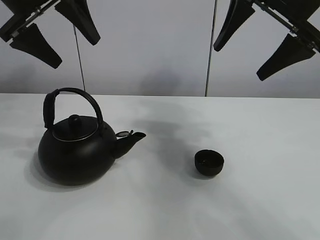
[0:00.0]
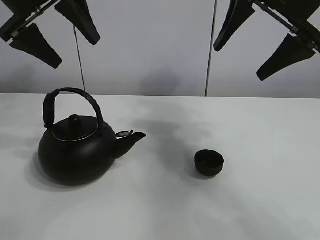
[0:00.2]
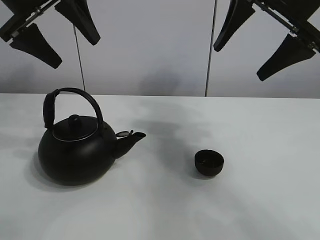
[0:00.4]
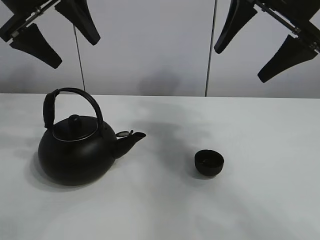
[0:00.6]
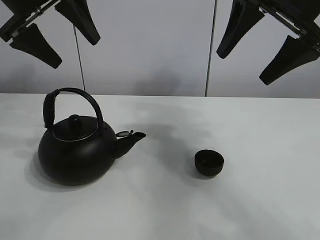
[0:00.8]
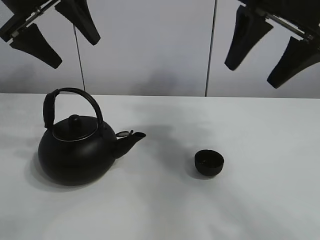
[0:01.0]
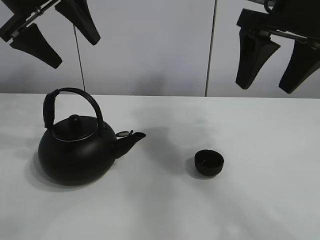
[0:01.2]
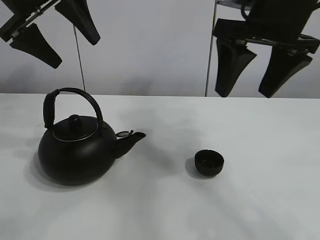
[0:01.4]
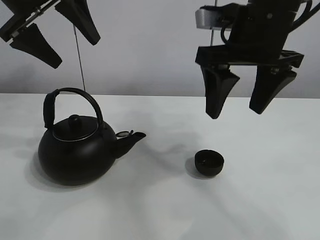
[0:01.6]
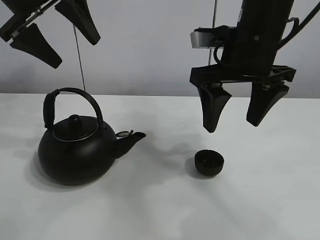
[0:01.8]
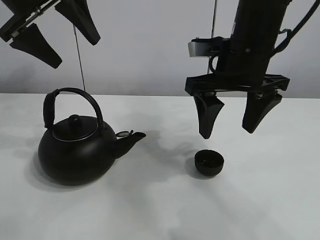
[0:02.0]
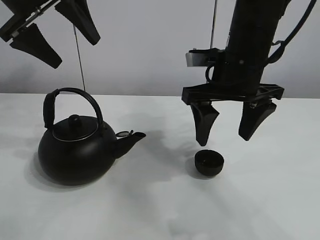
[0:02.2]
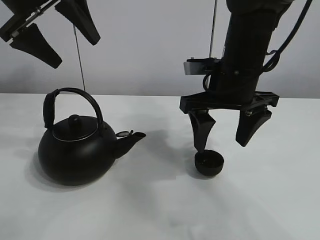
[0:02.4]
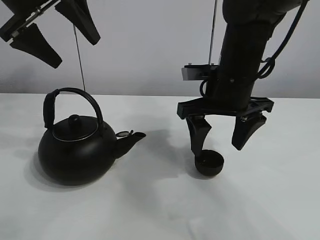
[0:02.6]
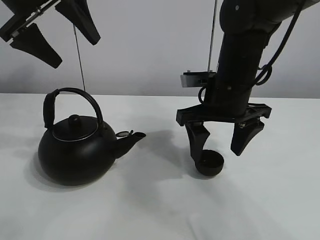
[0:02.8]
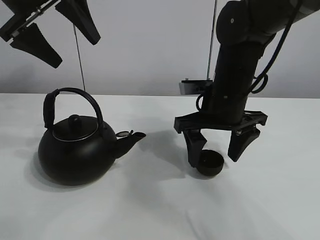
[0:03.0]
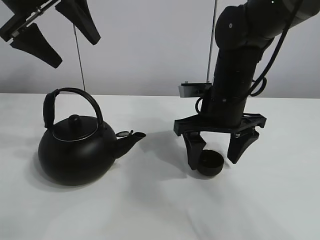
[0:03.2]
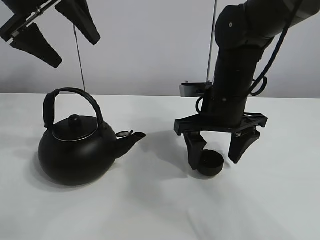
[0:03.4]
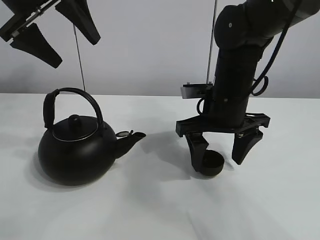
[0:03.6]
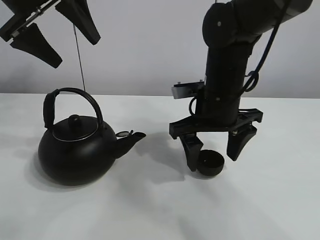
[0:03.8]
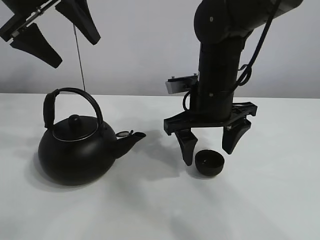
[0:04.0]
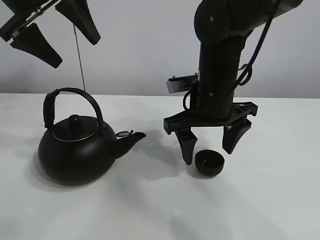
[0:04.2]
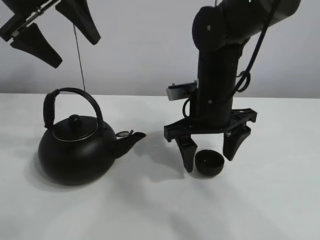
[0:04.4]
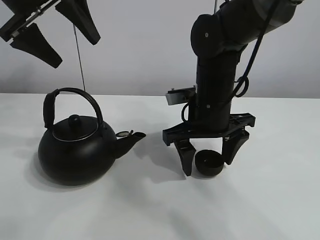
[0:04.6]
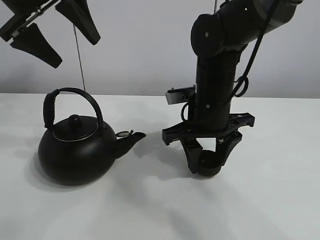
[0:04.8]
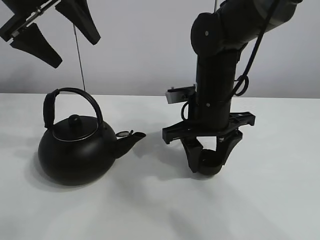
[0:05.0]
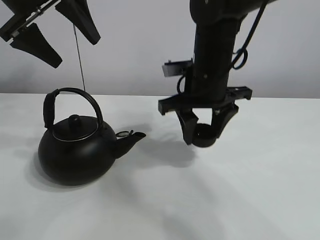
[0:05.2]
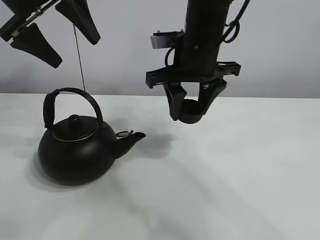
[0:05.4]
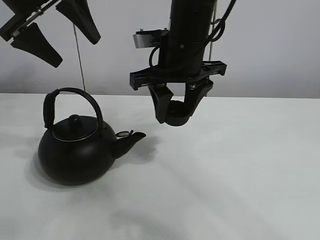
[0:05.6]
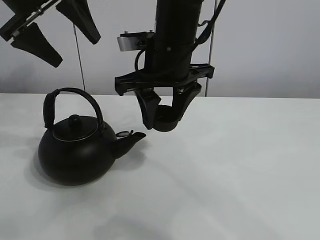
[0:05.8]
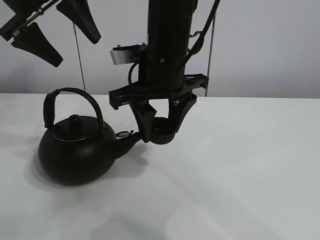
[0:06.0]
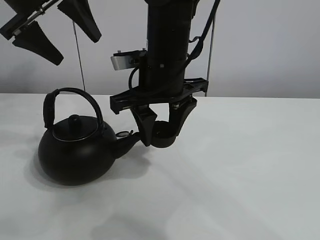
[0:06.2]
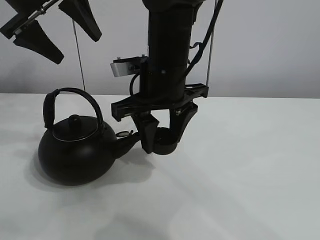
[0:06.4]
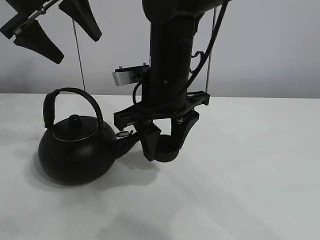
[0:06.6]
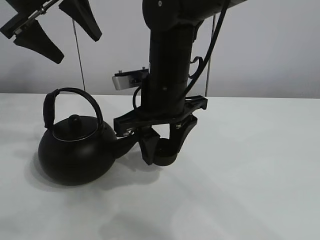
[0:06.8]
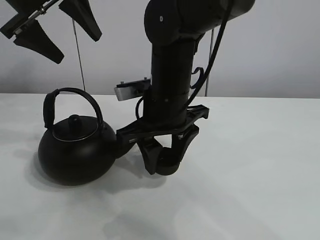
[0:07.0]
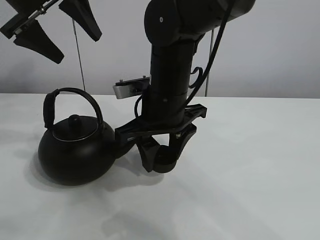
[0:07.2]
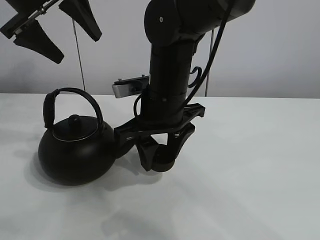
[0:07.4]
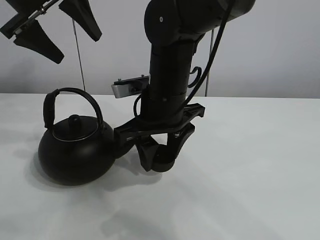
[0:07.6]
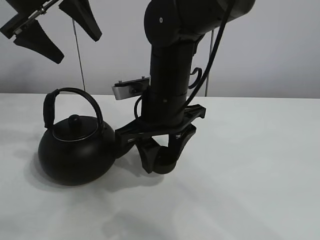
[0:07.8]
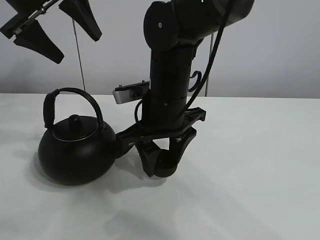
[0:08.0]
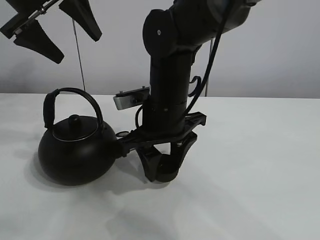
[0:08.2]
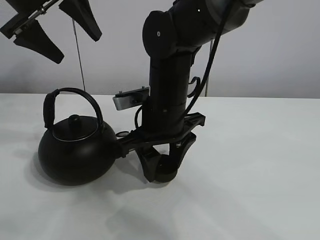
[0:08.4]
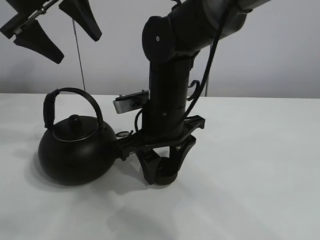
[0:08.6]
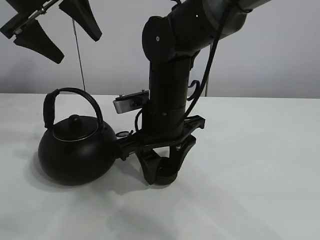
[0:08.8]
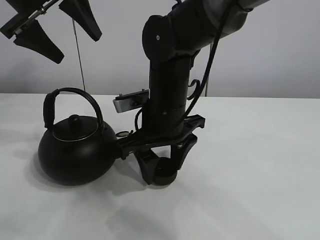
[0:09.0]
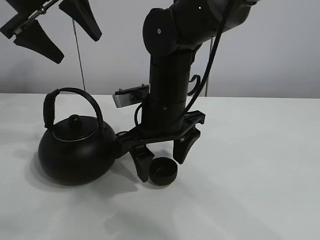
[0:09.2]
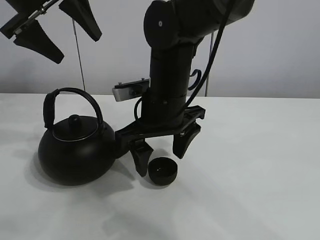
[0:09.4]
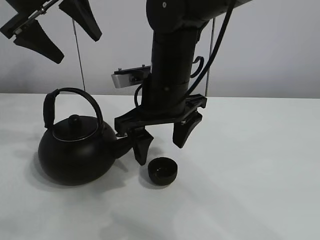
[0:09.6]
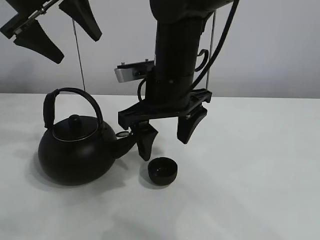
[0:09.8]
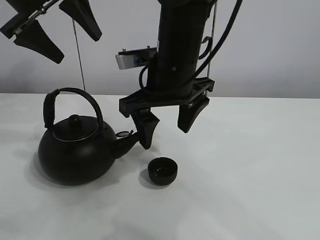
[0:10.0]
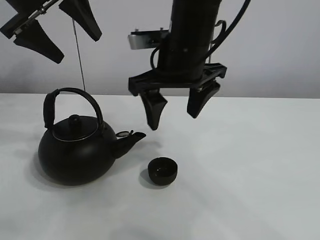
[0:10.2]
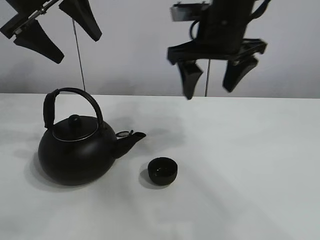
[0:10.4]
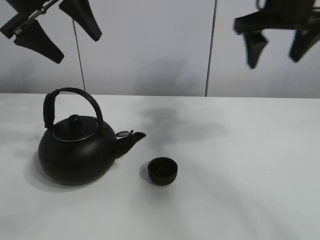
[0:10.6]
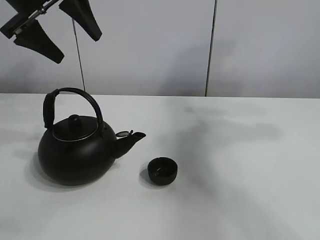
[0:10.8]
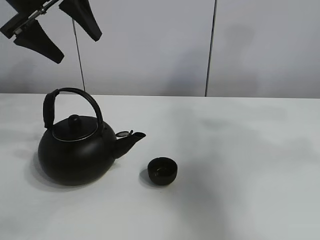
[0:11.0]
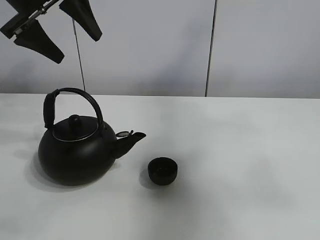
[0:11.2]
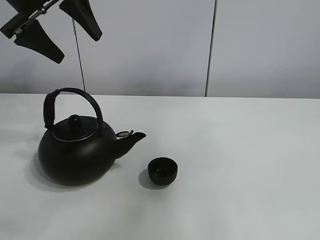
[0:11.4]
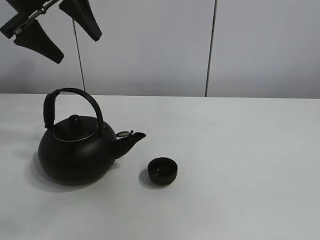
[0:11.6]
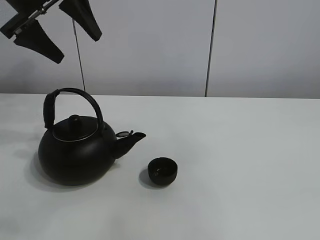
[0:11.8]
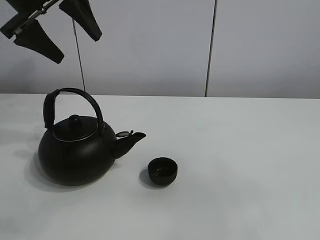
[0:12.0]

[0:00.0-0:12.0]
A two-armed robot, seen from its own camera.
Task of the whole recording: pour tea into the teacup.
Step, 0:00.0 to 0:05.0: Pick up the teacup with the right gripper.
Step, 0:05.2 to 0:09.0: Place the teacup in the center of view with the right gripper.
0:01.6 to 0:03.0: The right gripper heads downward, covering approximately 10 cm.
0:03.0 to 0:04.4: The grippers stay close to where they were, moving slightly.
0:04.4 to 0:06.0: The right gripper goes approximately 10 cm to the left and upward, and closes up.
0:06.0 to 0:07.6: The right gripper shifts roughly 5 cm downward.
0:07.6 to 0:09.0: The grippers stay close to where they were, moving slightly.
0:09.0 to 0:10.4: The right gripper shifts some 15 cm upward and to the right, and opens.
0:10.4 to 0:12.0: The right gripper moves backward, roughly 40 cm.

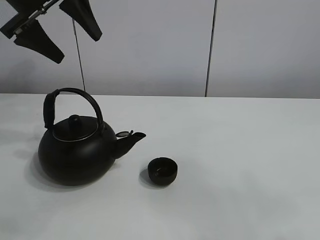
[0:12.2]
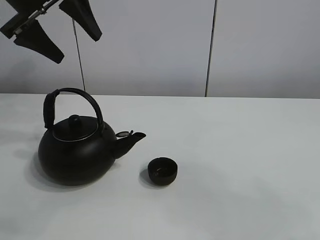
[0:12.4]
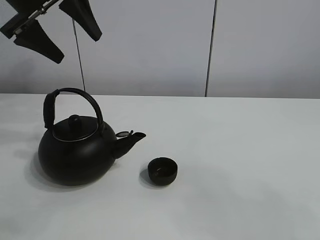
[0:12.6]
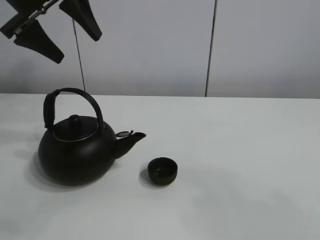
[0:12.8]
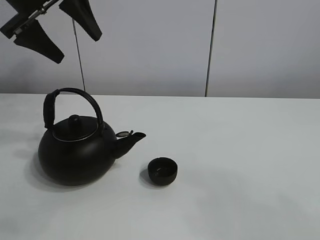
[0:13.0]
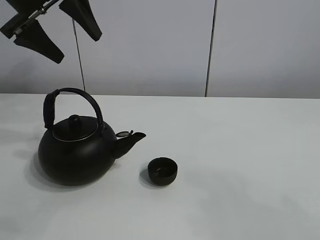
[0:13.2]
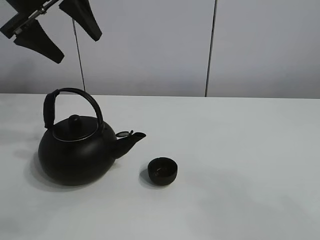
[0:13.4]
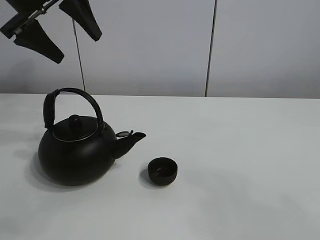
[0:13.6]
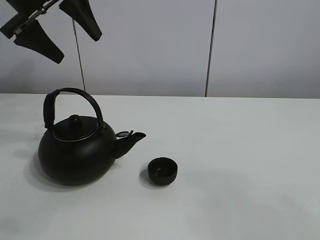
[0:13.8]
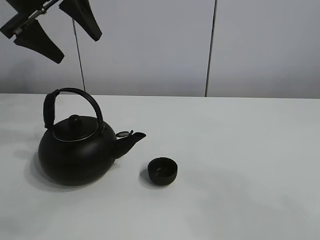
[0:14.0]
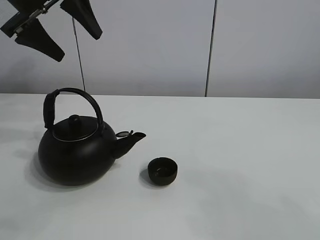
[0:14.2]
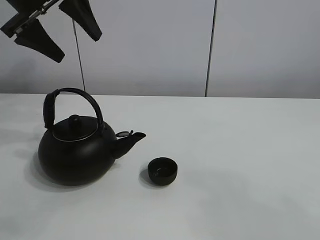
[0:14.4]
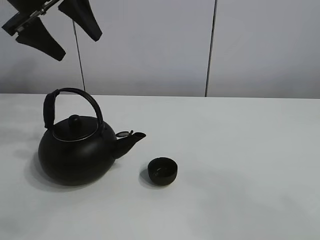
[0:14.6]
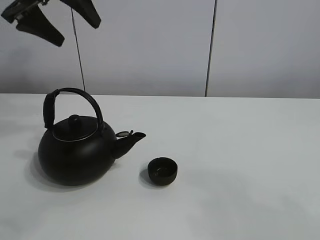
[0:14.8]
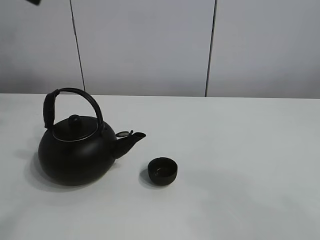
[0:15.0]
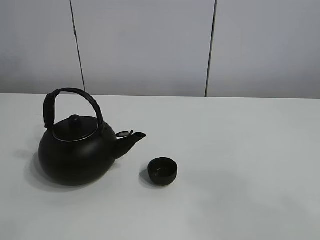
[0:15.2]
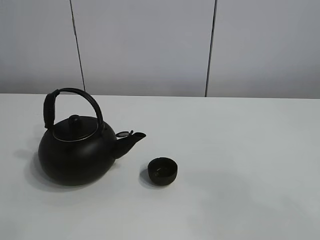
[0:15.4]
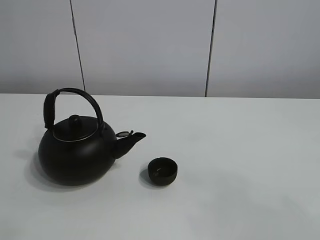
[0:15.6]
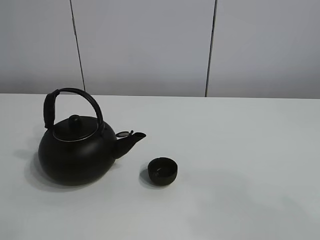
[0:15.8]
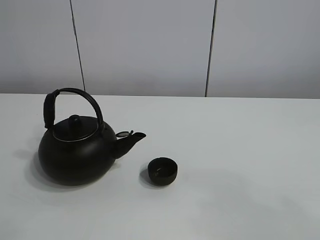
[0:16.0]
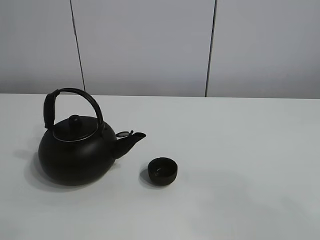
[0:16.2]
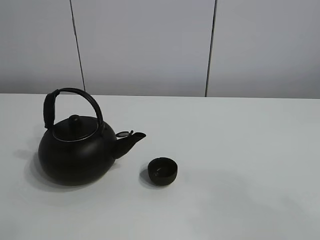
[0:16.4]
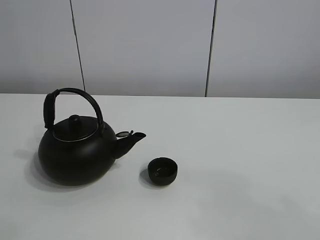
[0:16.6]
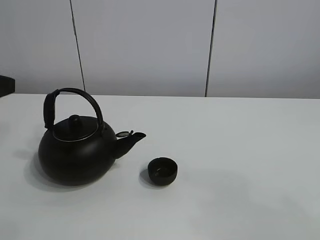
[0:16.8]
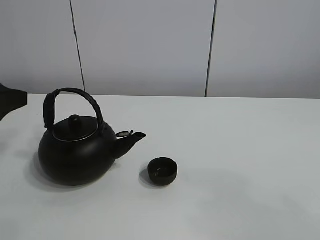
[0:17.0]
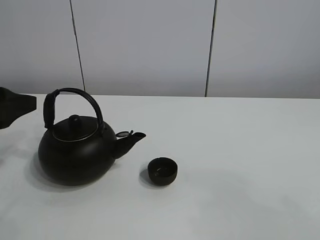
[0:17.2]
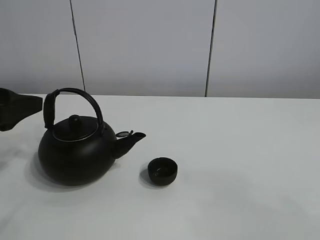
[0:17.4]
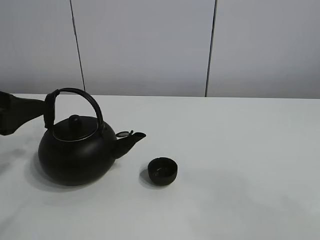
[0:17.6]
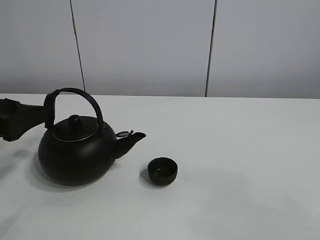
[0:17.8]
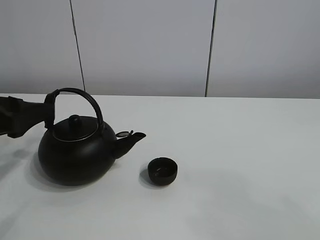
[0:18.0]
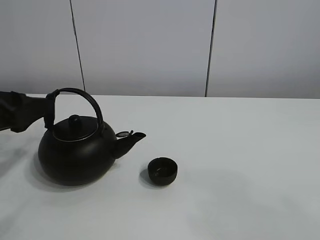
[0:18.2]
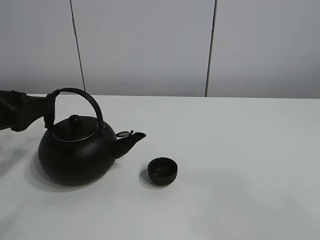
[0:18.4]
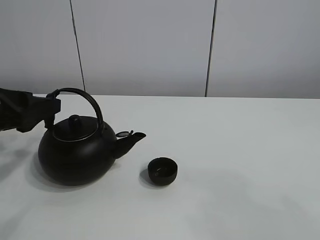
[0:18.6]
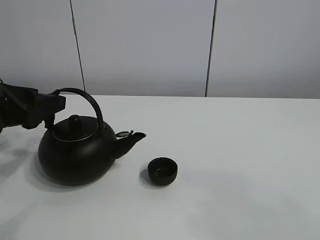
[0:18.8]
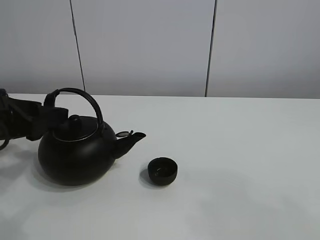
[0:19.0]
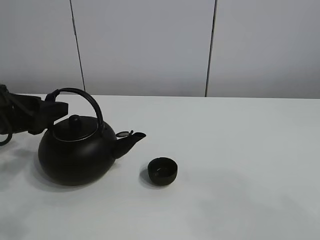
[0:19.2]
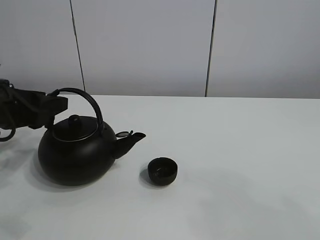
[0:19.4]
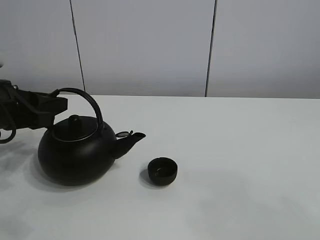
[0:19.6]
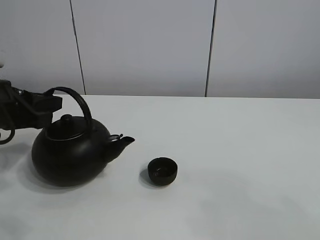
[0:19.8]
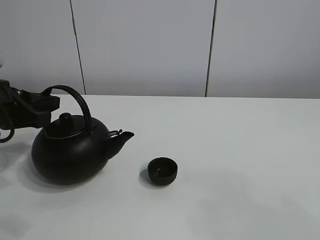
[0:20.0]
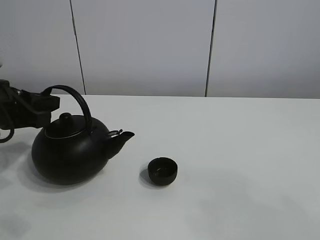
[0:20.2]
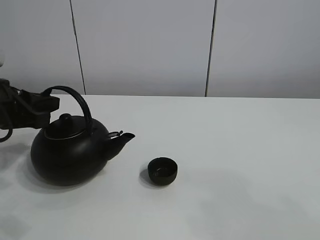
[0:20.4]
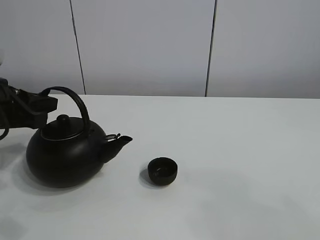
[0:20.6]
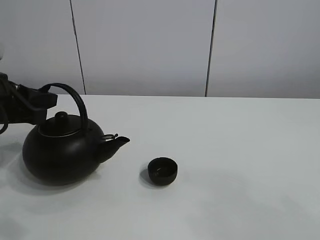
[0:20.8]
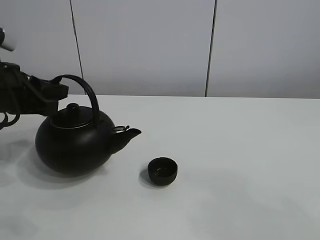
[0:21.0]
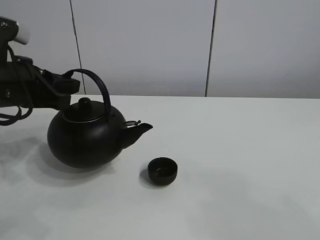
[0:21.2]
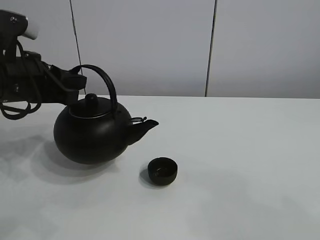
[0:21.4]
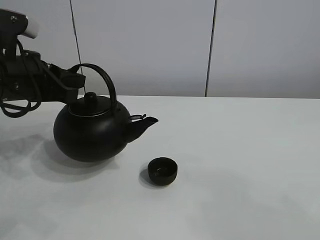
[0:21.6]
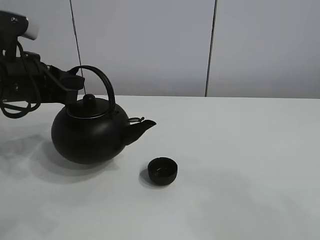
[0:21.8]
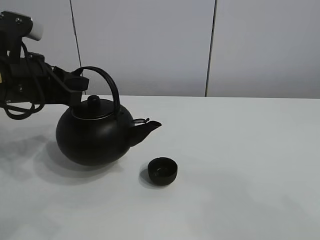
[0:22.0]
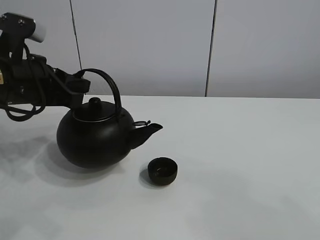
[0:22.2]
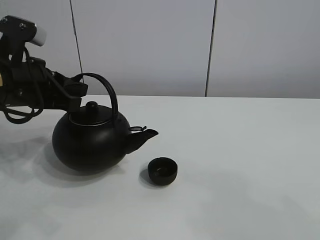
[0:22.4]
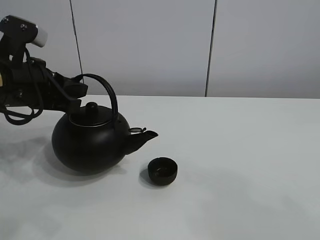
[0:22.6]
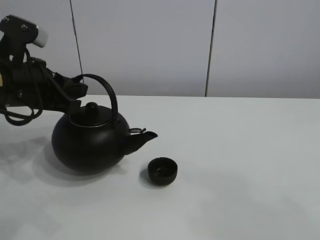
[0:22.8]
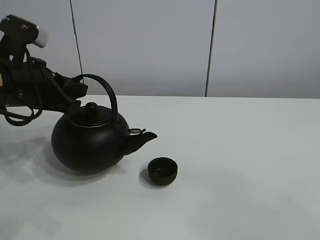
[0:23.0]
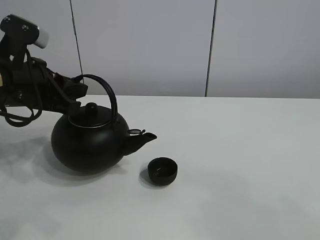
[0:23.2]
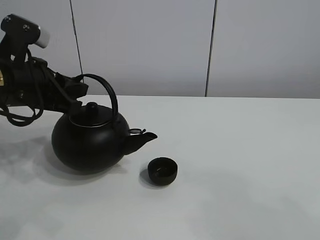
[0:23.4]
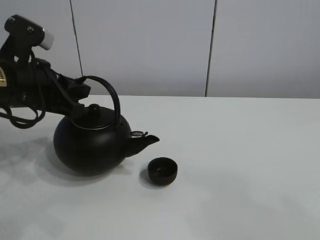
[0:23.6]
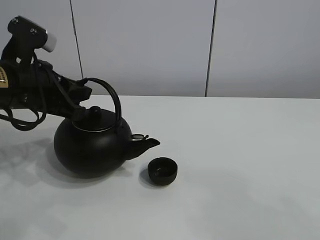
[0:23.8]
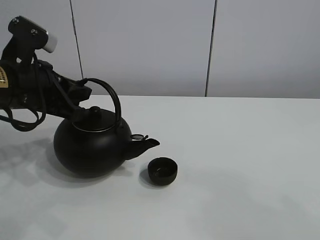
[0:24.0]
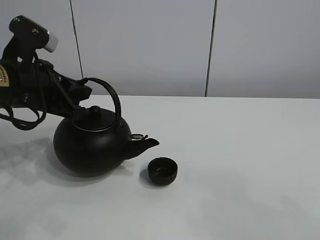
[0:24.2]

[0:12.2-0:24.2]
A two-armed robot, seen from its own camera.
Task of the whole recording: pour tea into the teacup.
Step, 0:12.2 to 0:20.4: Pick up the teapot with the left gripper.
0:13.8 to 0:15.2: The left gripper moves upward and backward, some 15 cm.
0:16.6 to 0:18.2: The left gripper heads downward, covering roughly 5 cm.
0:18.2 to 0:19.8: The left gripper closes its fingers.
0:19.8 to 0:21.2: The left gripper moves approximately 5 cm.
0:21.2 to 0:24.2: The grippers stay close to where they were, moving slightly.
